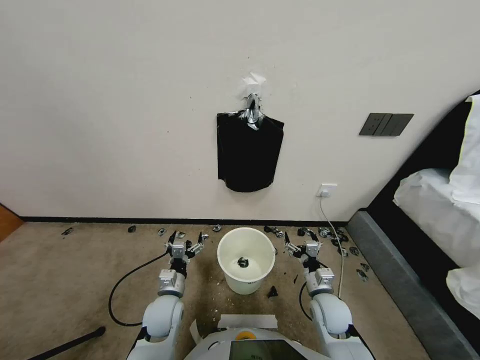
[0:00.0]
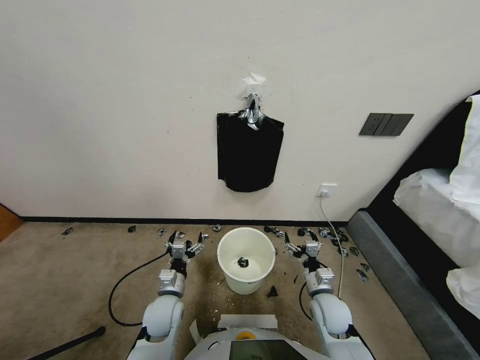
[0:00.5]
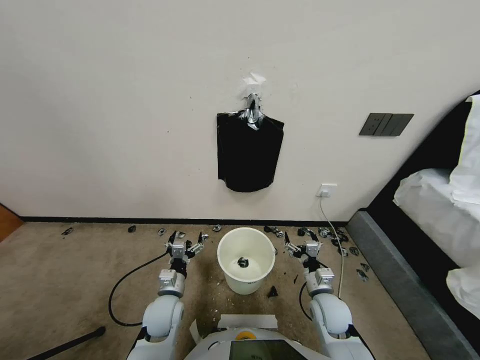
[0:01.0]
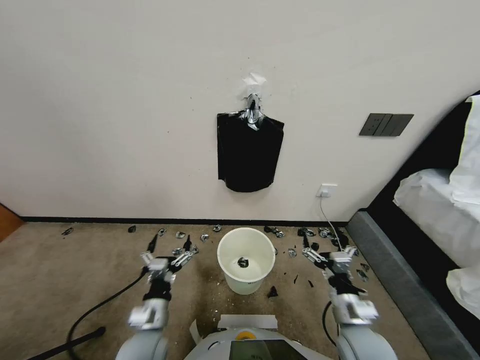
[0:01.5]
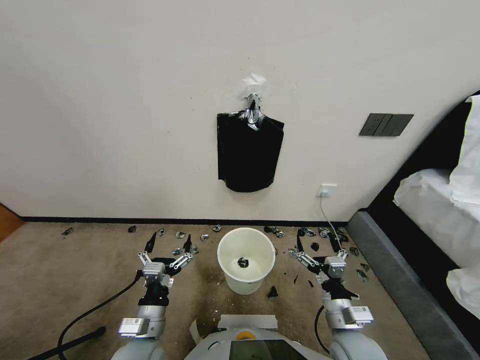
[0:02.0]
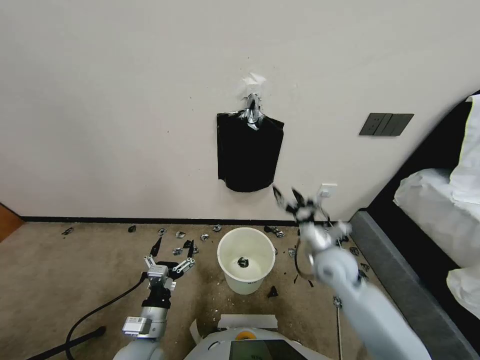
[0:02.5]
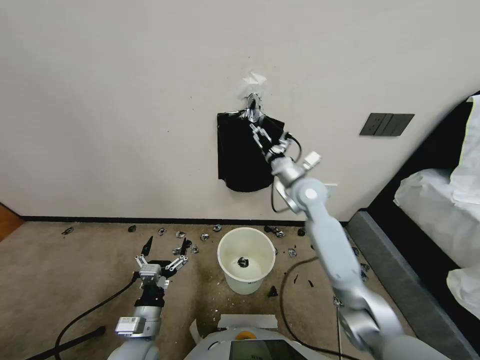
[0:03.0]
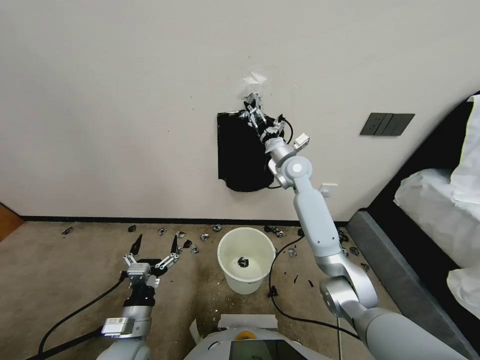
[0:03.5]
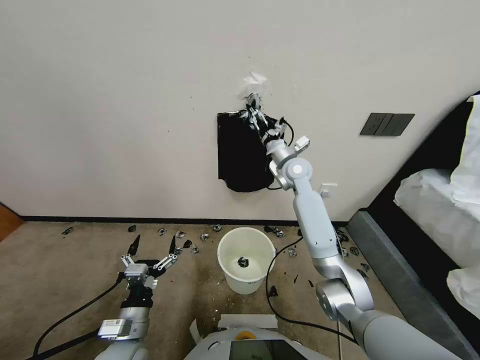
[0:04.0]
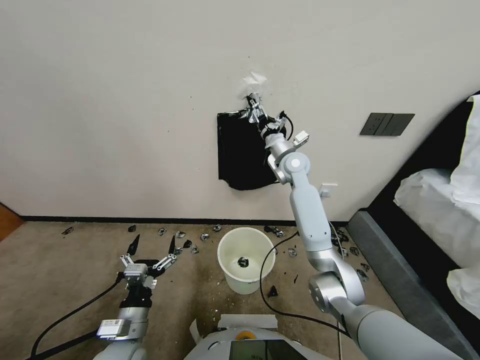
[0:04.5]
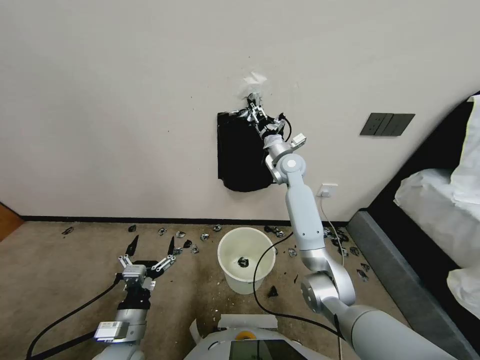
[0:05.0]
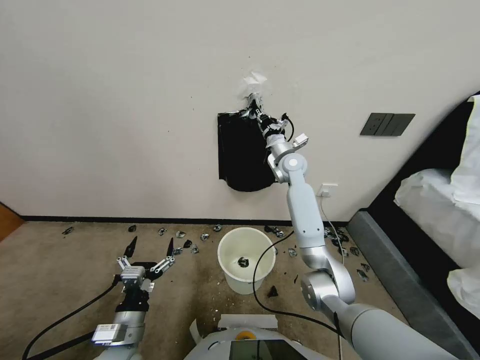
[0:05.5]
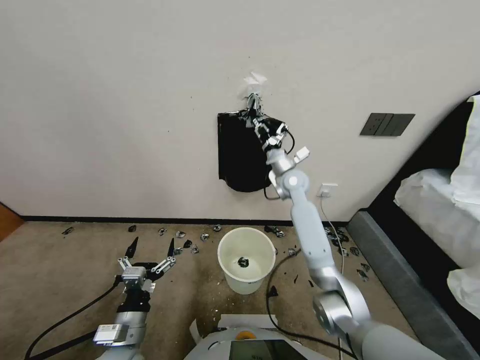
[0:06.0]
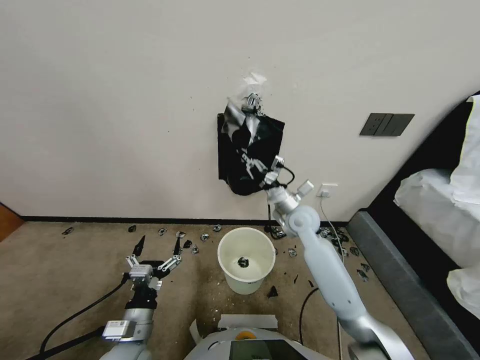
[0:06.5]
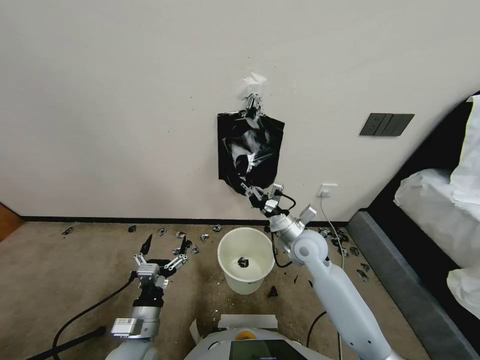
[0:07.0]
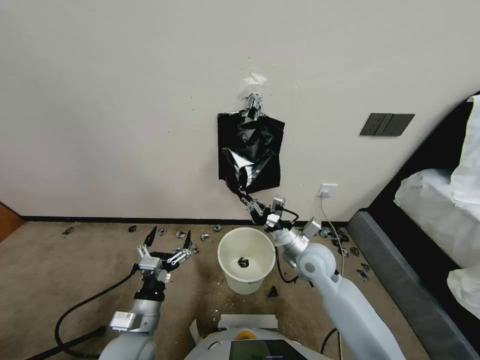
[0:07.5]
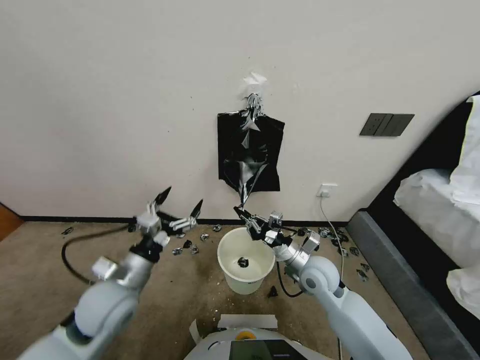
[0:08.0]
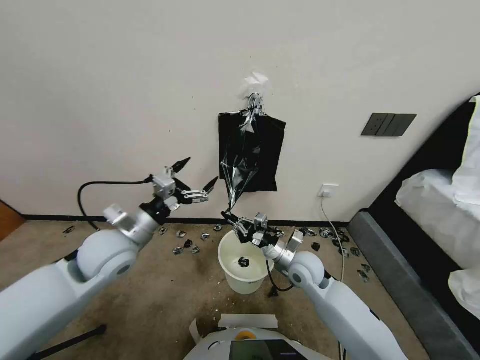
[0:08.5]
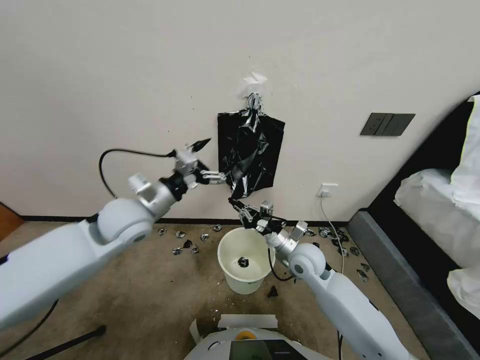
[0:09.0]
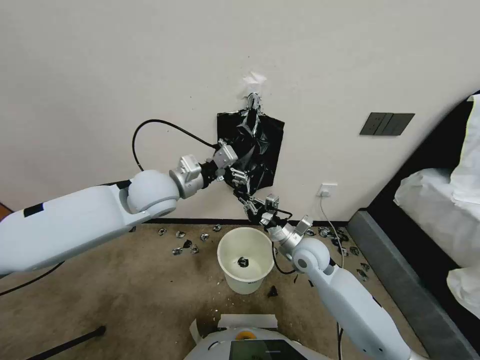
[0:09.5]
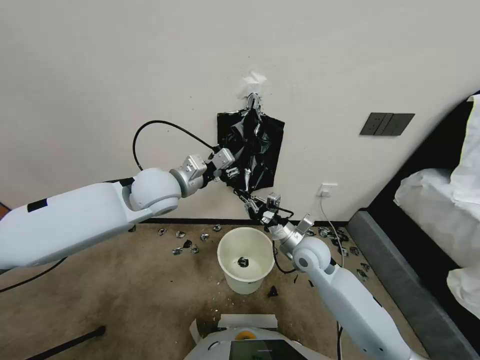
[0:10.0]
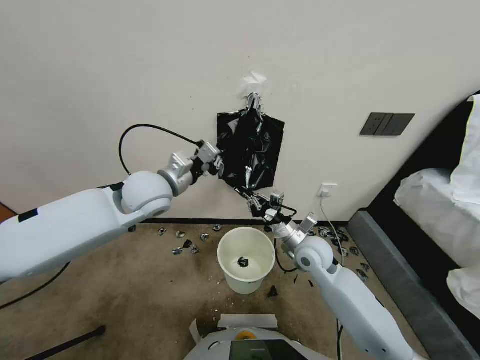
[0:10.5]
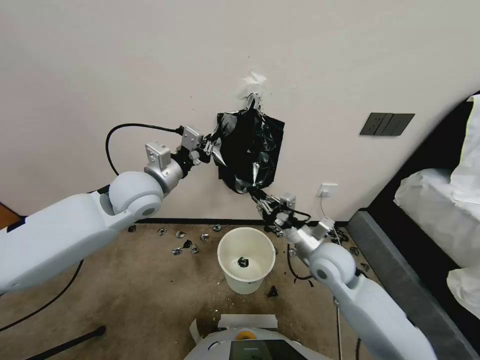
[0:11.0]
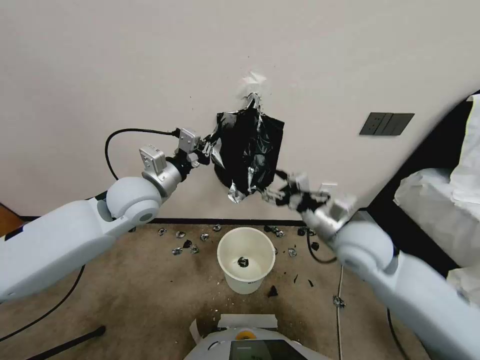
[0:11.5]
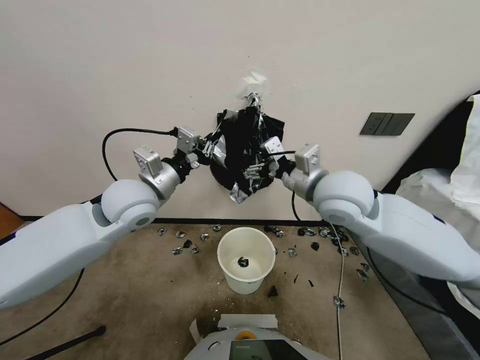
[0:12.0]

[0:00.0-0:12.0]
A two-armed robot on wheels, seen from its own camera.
Task of the whole recording: Place a trash bag onto the trash bin.
0:02.0 to 0:04.0: The right gripper travels forward and upward by some 40 cm.
0:04.0 to 0:06.0: The right gripper travels downward by about 5 cm, and closes.
0:06.0 to 0:08.0: The right gripper shifts approximately 20 cm backward and downward; the left gripper is displaced forward and upward by approximately 20 cm.
0:08.0 to 0:10.0: The right gripper shifts by some 5 cm, while the left gripper is displaced forward, upward and to the right by some 20 cm, and closes up.
0:10.0 to 0:12.0: The right gripper goes approximately 20 cm upward, and opens up. Meanwhile the left gripper shifts by about 5 cm.

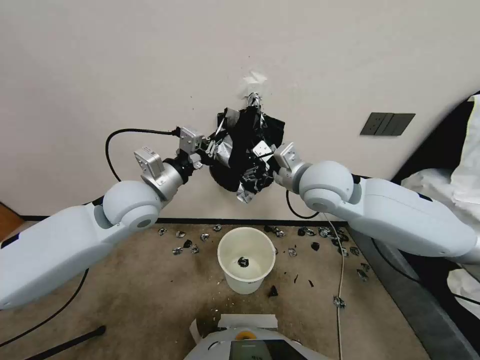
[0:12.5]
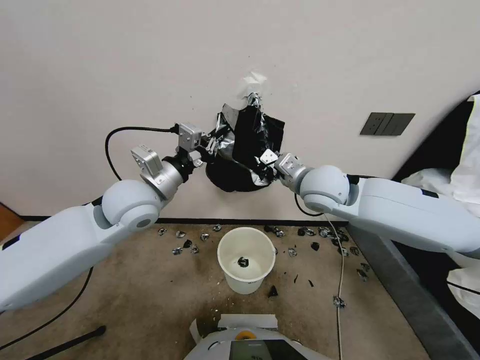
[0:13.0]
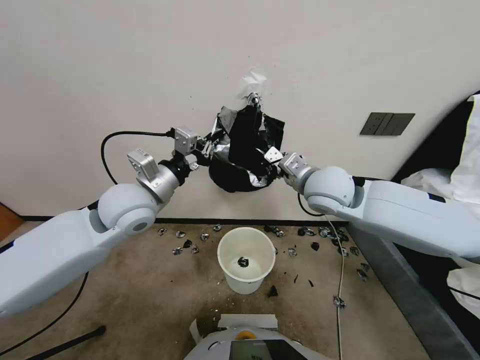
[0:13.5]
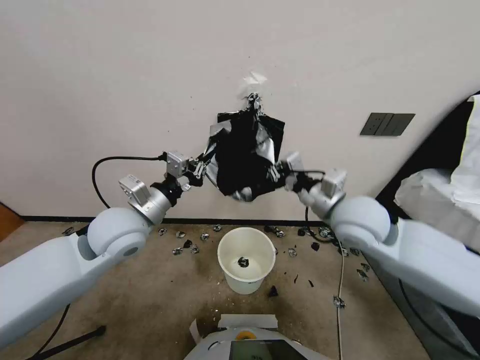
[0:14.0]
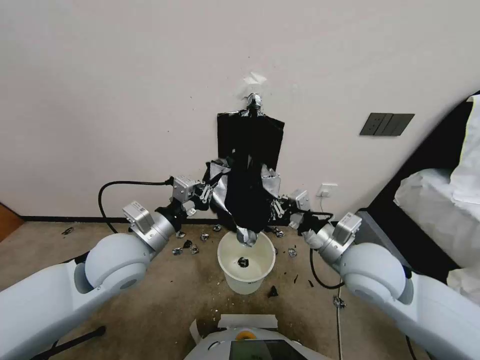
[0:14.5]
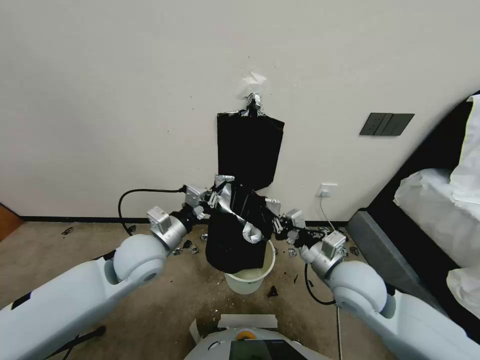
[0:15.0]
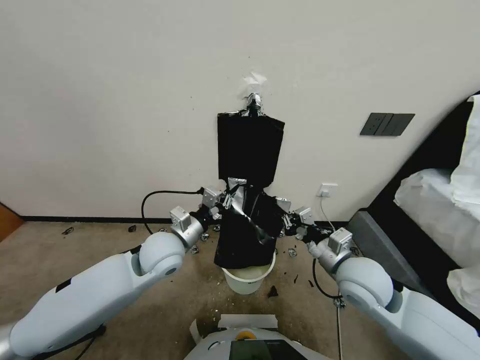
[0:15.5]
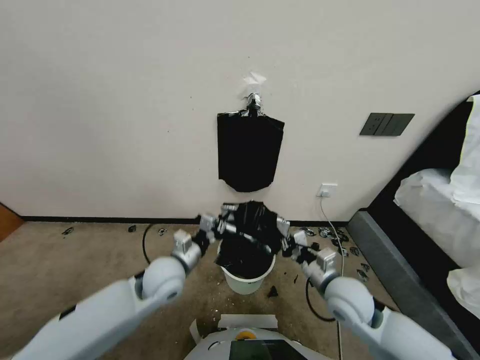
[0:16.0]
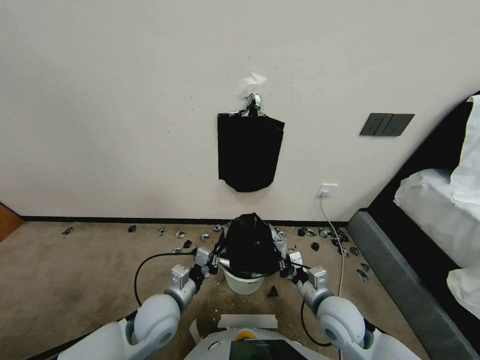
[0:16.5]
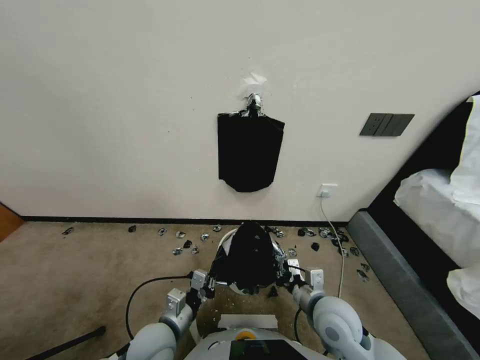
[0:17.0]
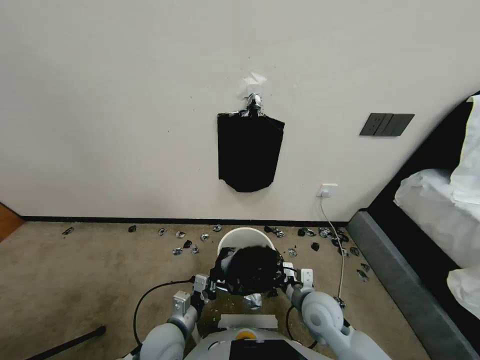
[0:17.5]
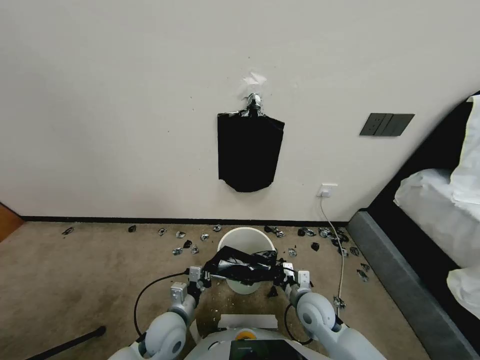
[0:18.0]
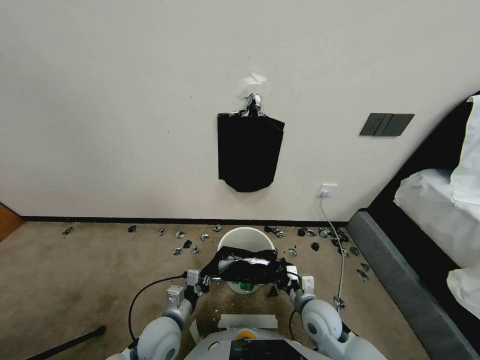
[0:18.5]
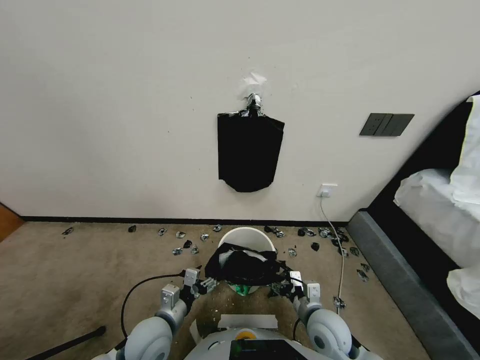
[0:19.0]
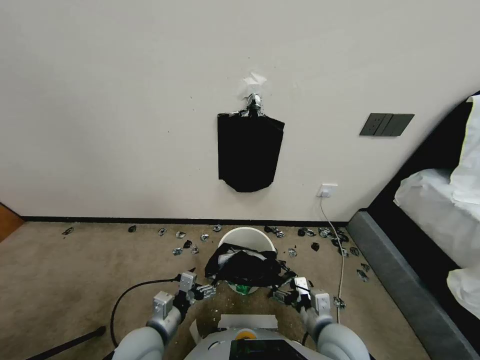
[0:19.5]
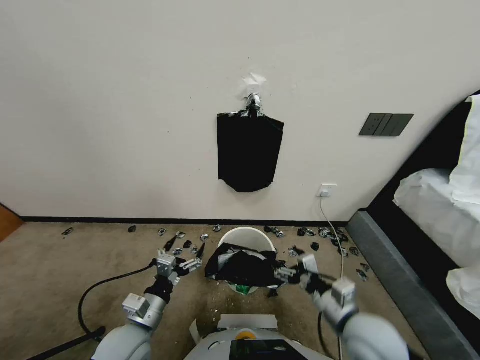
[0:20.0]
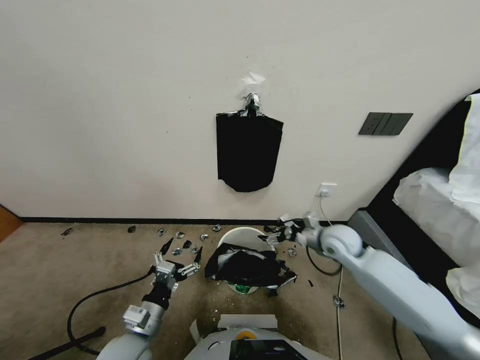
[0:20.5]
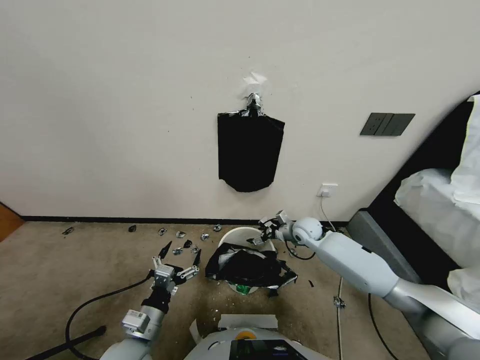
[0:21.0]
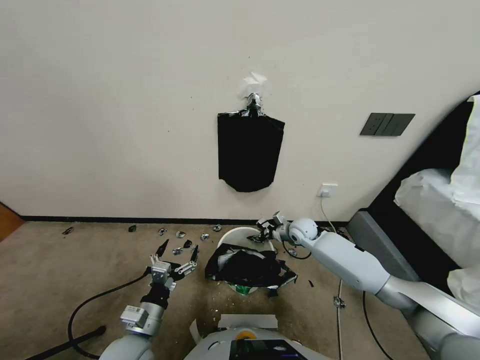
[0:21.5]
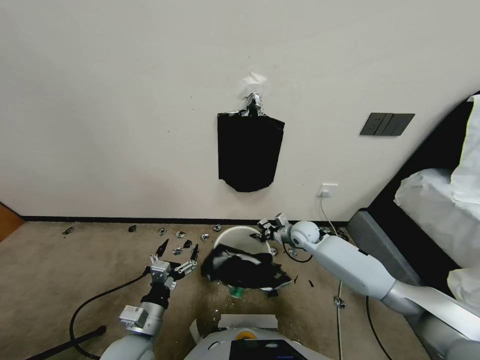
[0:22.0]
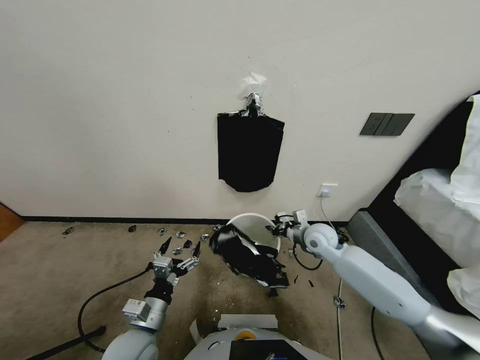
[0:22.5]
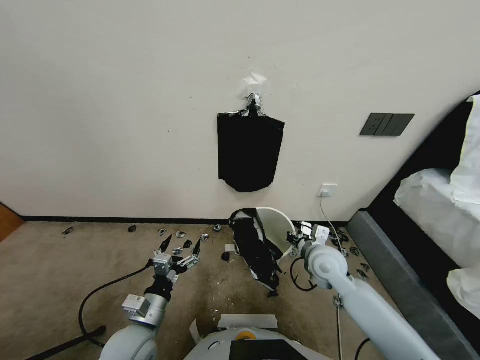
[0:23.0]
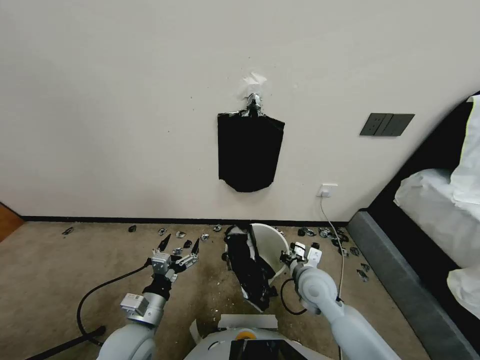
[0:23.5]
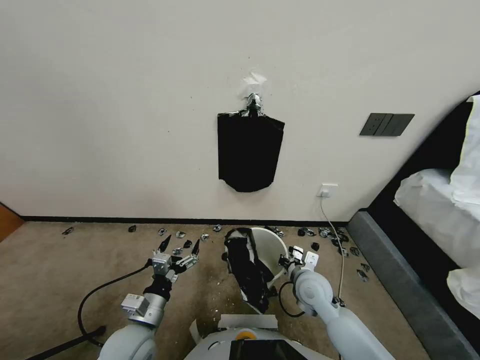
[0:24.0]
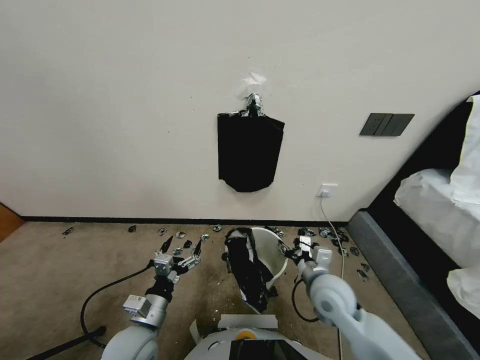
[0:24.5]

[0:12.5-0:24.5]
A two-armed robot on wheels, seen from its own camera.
Task of the whole recording: Place a trash bag onto the trash bin.
0:12.5 to 0:14.5: The left gripper shifts some 10 cm backward and downward; the right gripper heads backward, downward and to the right, covering some 20 cm, and closes.
0:14.5 to 0:16.5: The right gripper moves downward, roughly 15 cm; the left gripper travels downward and backward by approximately 20 cm.
0:16.5 to 0:18.5: The two grippers go about 5 cm downward. The right gripper opens its fingers, while the left gripper opens up.
0:18.5 to 0:20.5: The left gripper moves about 5 cm, and opens, while the right gripper travels forward and upward by roughly 25 cm, and opens its fingers.
0:20.5 to 0:22.5: The right gripper moves roughly 5 cm forward and comes back, and closes.
0:22.5 to 0:24.5: The right gripper shifts roughly 15 cm backward, and opens up.

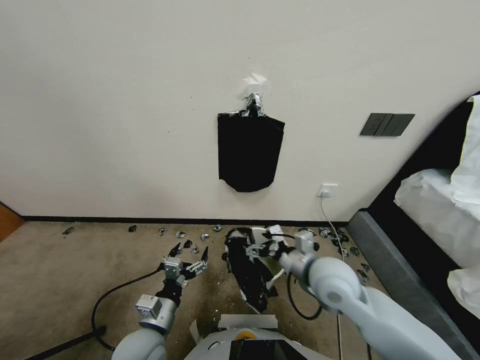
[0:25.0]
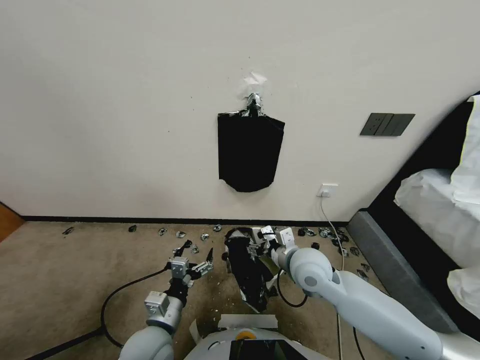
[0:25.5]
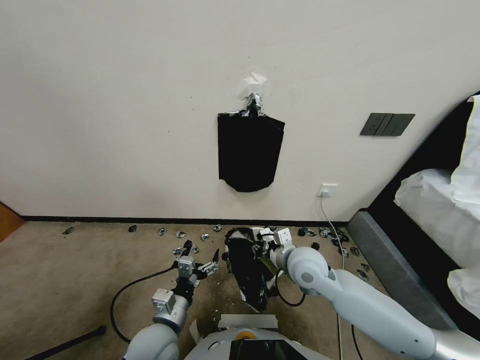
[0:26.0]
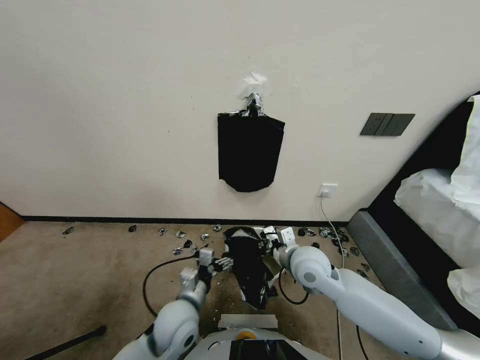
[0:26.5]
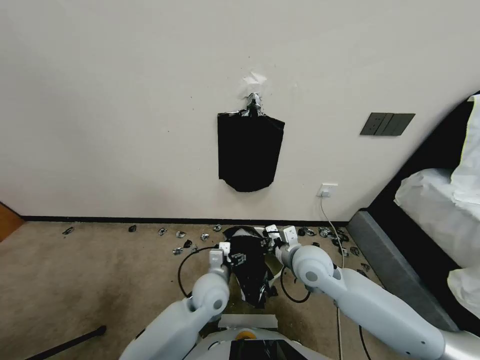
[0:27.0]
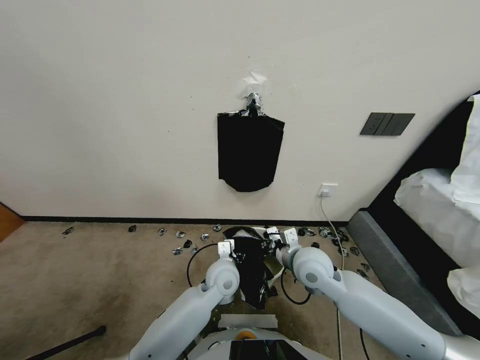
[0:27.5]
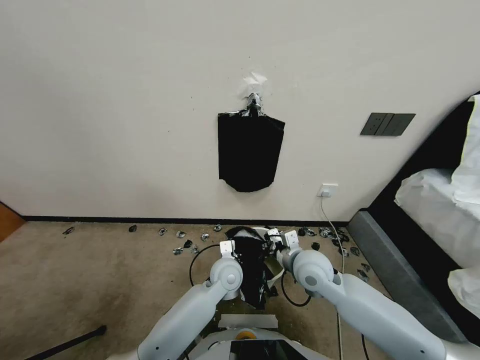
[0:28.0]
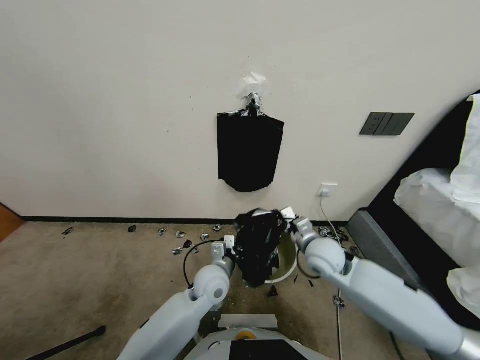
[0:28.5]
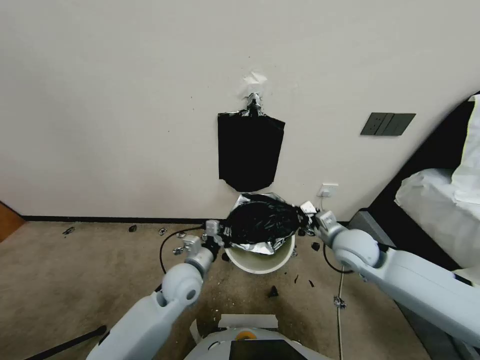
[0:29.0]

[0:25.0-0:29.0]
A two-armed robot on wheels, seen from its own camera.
Task of the whole recording: Place a trash bag onto the trash bin.
0:25.0 to 0:27.0: The right gripper closes; the left gripper heads to the right and forward, covering roughly 20 cm.
0:27.0 to 0:29.0: The right gripper heads to the right, covering roughly 10 cm. The left gripper is displaced to the left and upward by approximately 10 cm, and closes its fingers.
